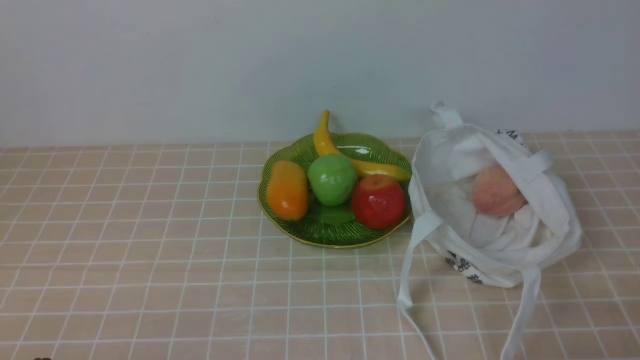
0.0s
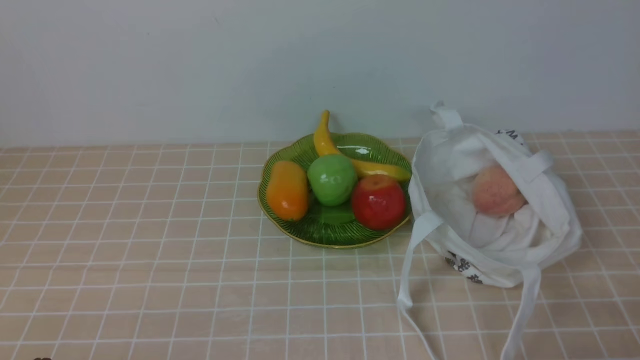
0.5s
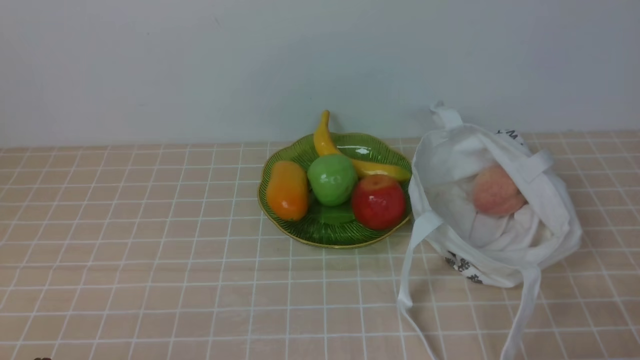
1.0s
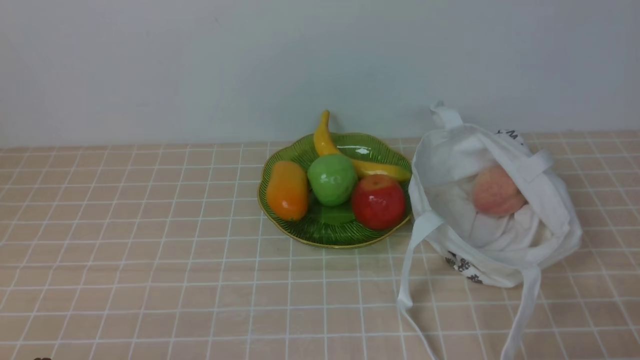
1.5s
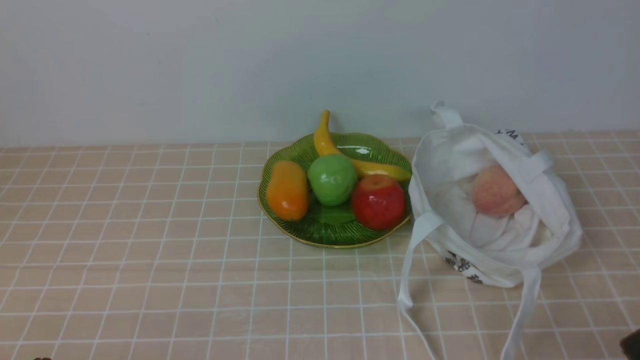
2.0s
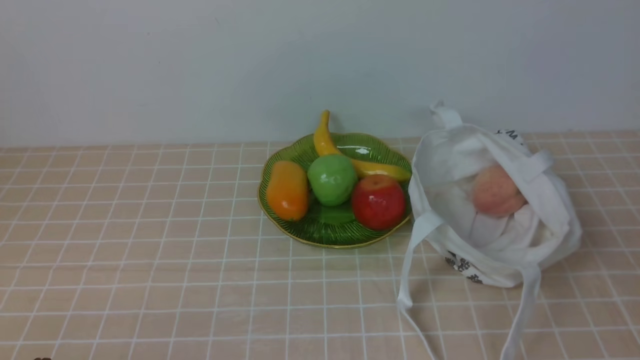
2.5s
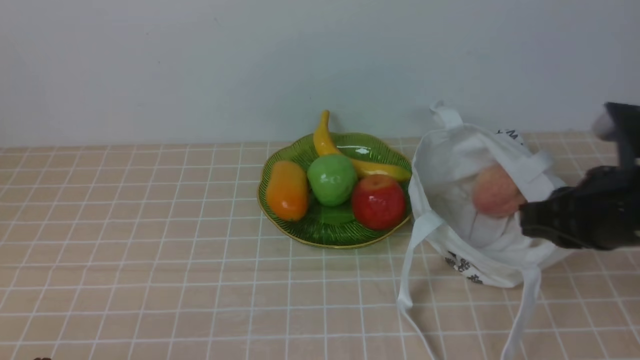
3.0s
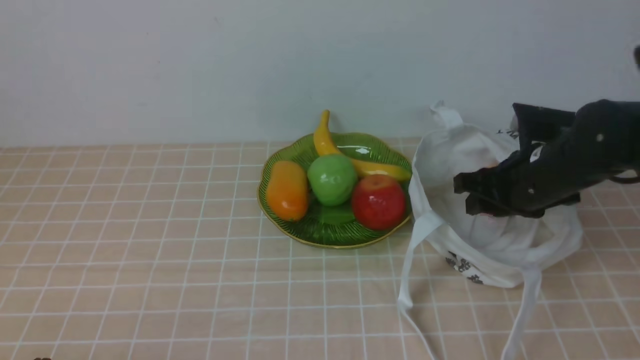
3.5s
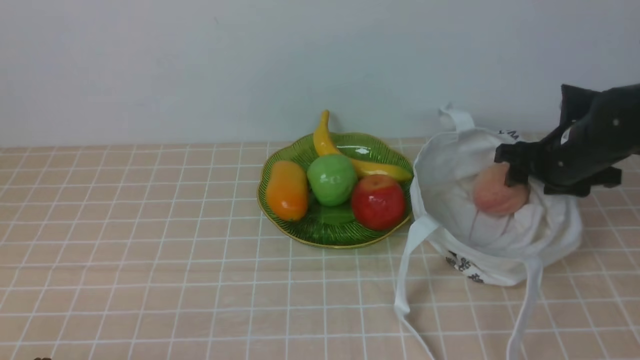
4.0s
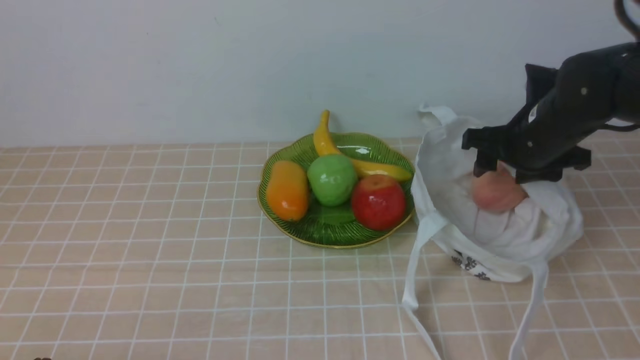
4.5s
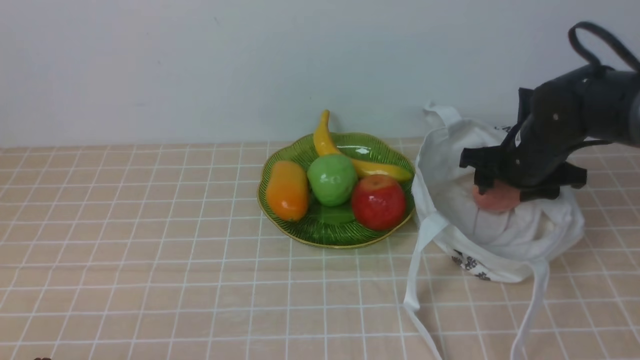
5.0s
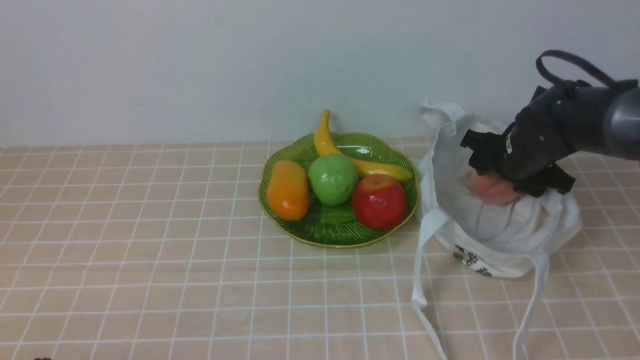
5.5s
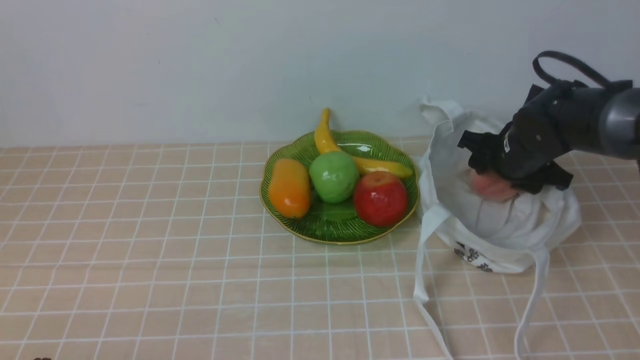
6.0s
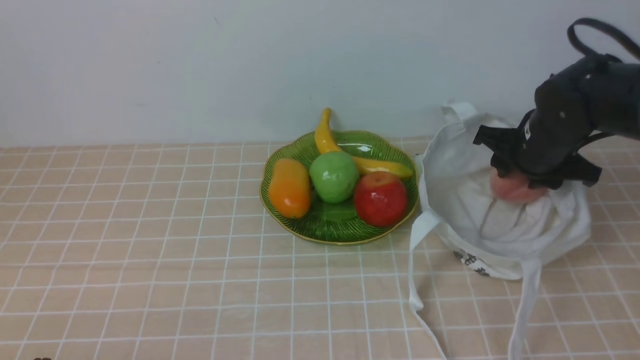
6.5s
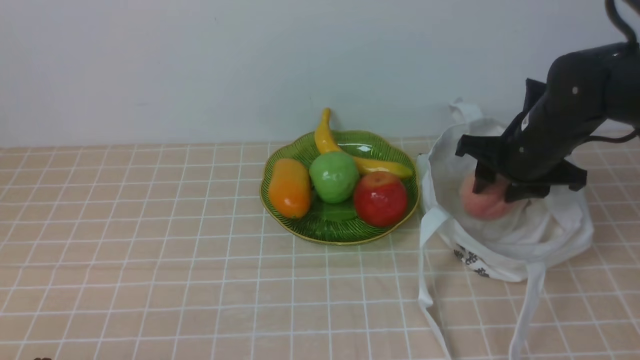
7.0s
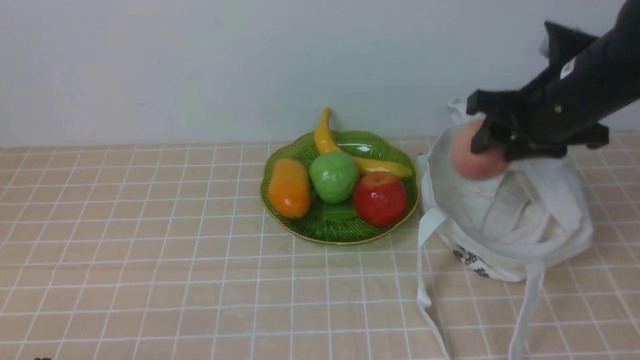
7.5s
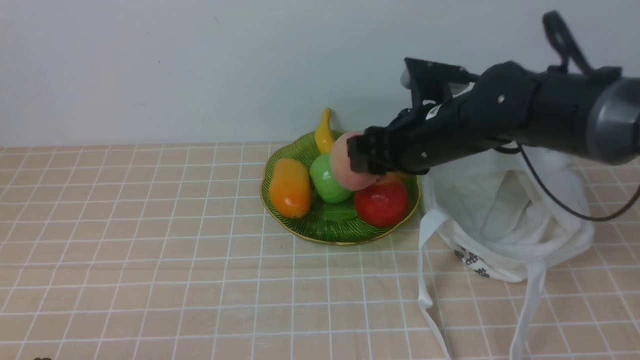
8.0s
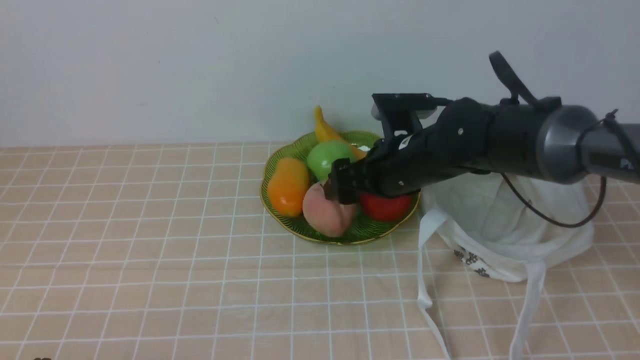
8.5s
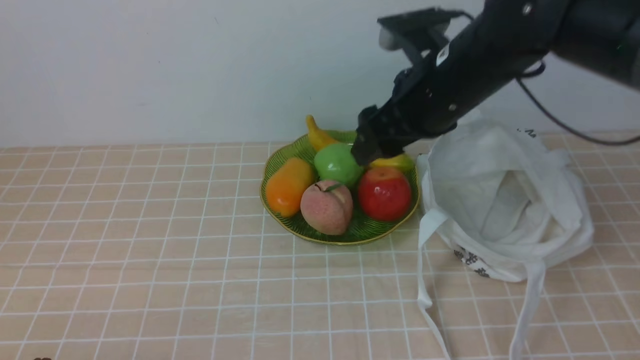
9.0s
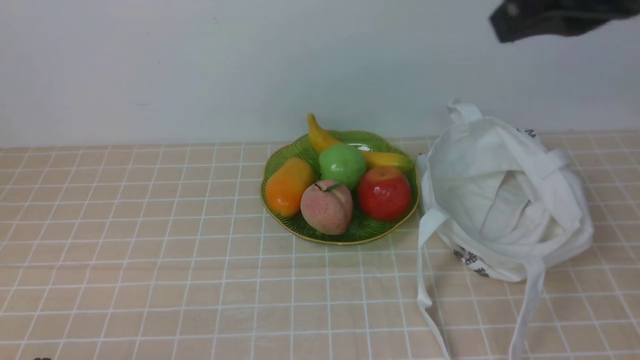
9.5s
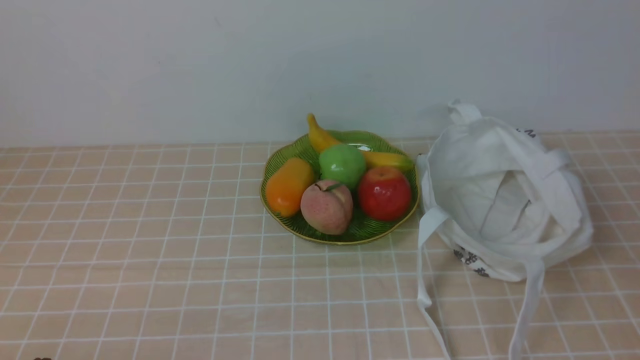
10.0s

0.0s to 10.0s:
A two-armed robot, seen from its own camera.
Step, 0.0s to 6.5s: use the right arm to grab a peach from the bag.
Step, 7.0s to 8.5s: use the right arm to put the peach into the empty plate on the left.
2.0s to 4.0s: The right gripper goes approximately 35 cm forward, and opens.
4.0s to 6.0s: The right gripper changes place by roughly 5 cm.
6.0s to 8.0s: The right gripper goes about 15 cm to the left and upward.
8.0s to 10.0s: The right gripper goes some 35 cm backward and to the right, and closes its fingers.

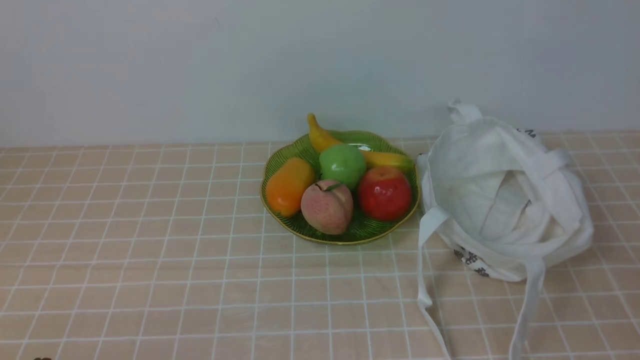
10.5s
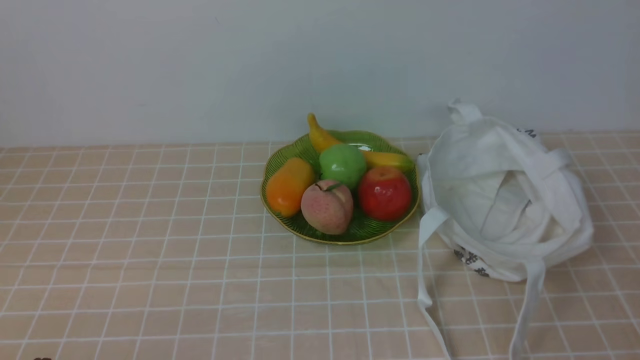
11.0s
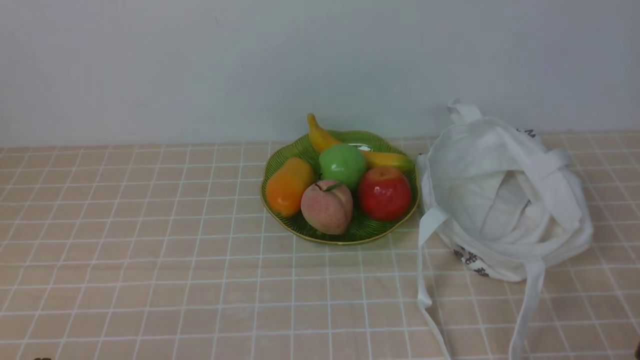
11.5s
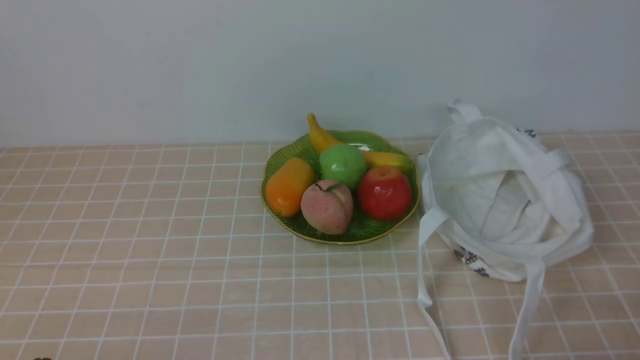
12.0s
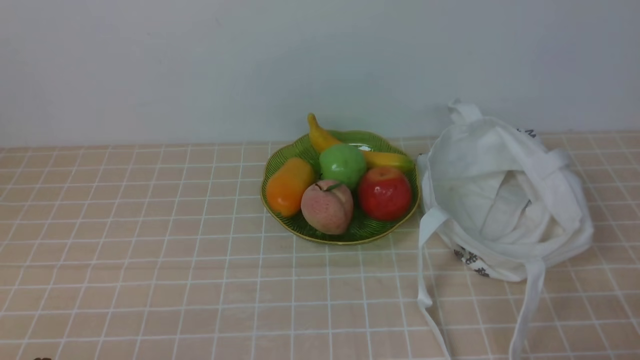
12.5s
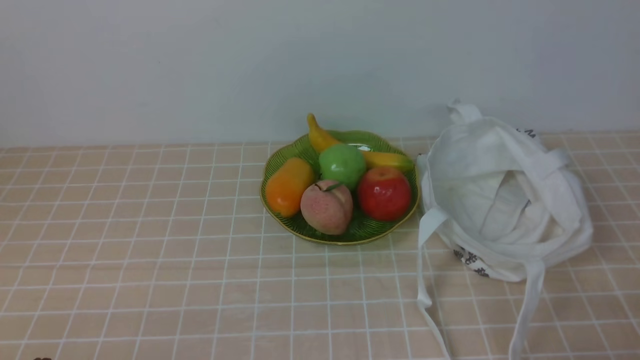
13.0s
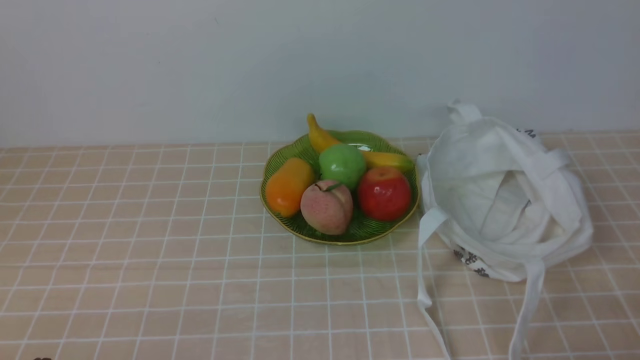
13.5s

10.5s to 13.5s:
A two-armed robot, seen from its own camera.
12.0s to 13.5s: Both grippers stay about where they are.
